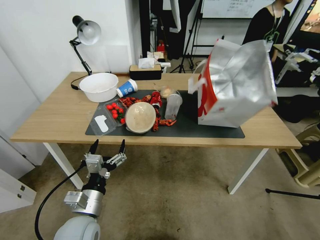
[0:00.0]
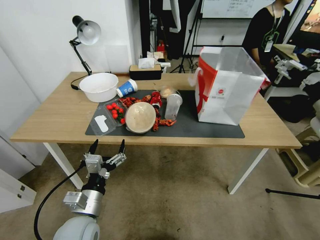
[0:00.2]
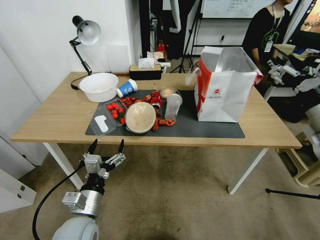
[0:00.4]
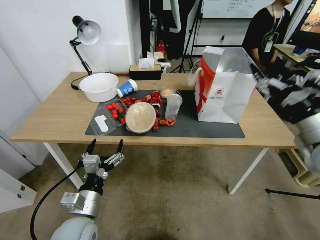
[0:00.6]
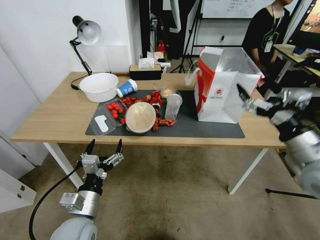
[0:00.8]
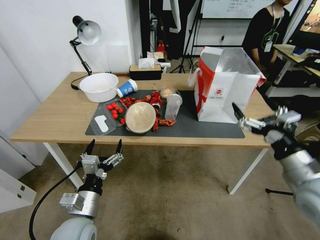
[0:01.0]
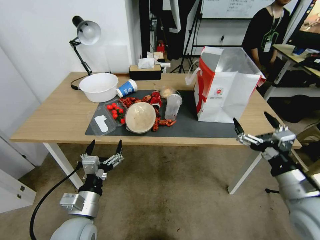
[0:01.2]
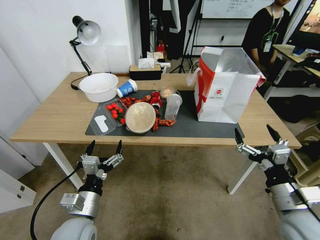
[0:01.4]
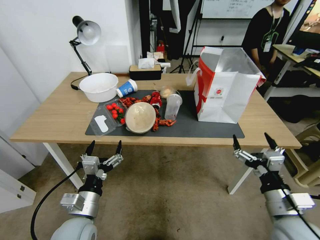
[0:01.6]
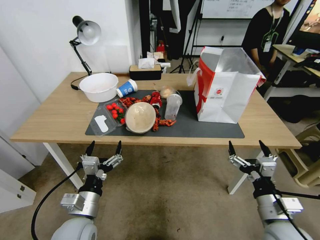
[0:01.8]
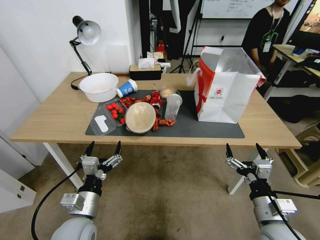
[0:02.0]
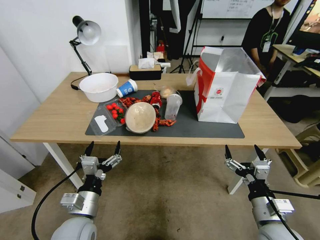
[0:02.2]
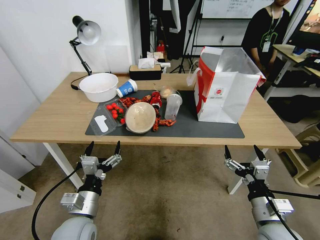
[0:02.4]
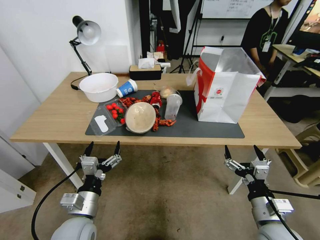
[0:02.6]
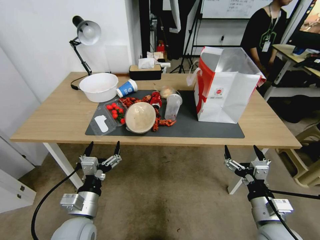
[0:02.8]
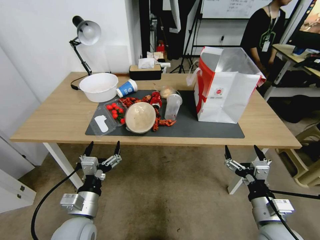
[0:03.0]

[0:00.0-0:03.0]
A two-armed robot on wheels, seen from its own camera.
Task of the whole recording: Pick up the food delivery bag from the floor and place it on the table.
0:00.0 to 0:01.6: The right gripper goes about 30 cm downward, backward and to the left.
0:01.6 to 0:03.0: The right gripper changes place by some 5 cm.
